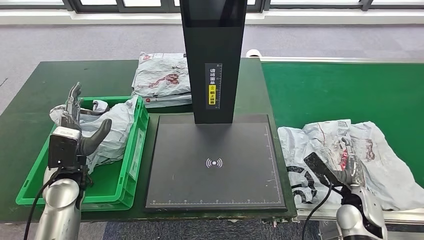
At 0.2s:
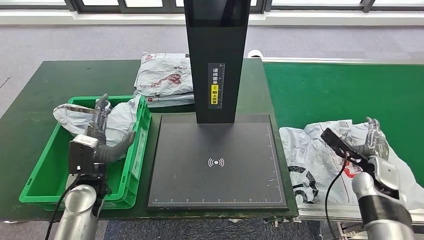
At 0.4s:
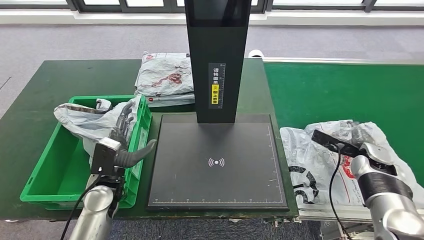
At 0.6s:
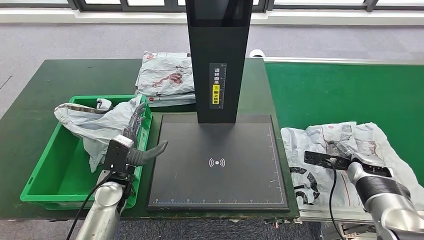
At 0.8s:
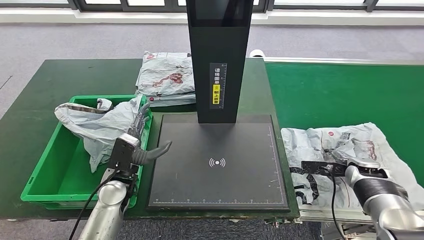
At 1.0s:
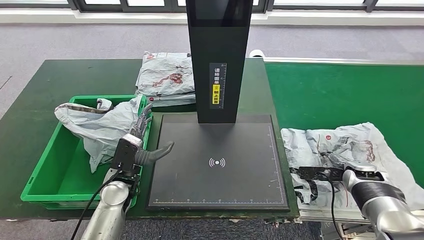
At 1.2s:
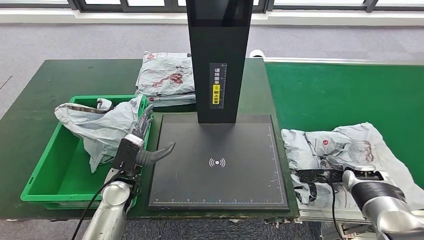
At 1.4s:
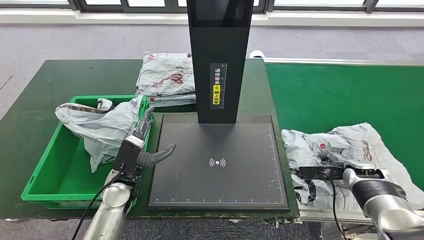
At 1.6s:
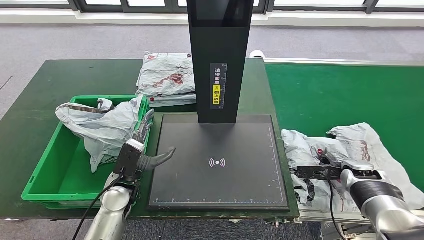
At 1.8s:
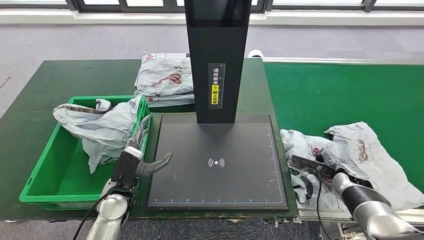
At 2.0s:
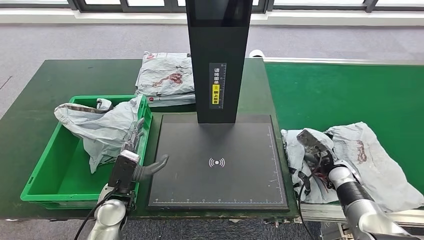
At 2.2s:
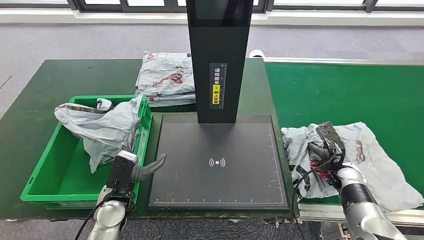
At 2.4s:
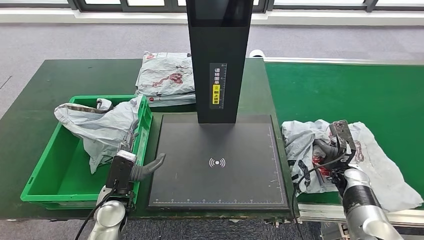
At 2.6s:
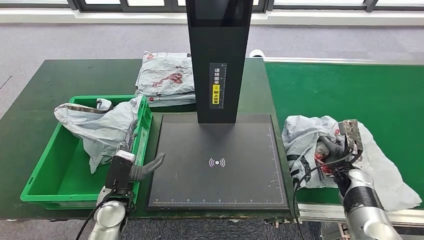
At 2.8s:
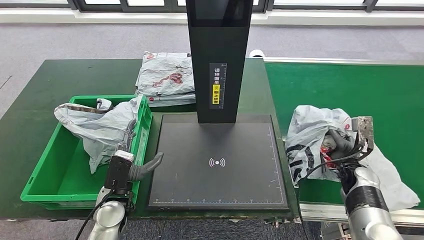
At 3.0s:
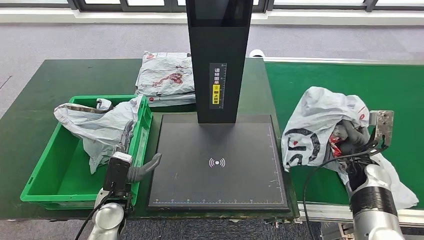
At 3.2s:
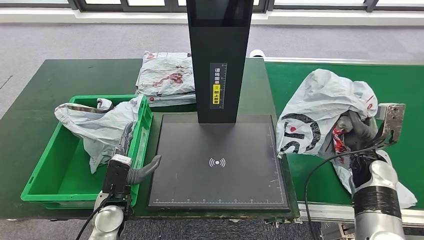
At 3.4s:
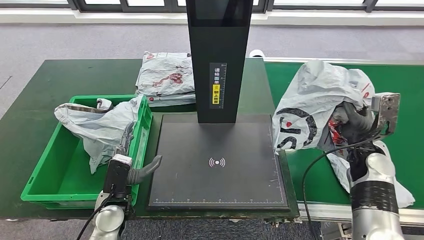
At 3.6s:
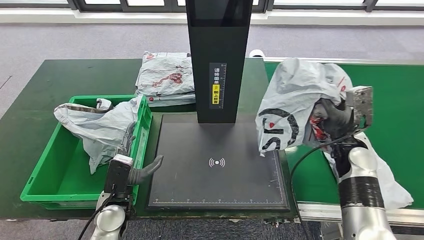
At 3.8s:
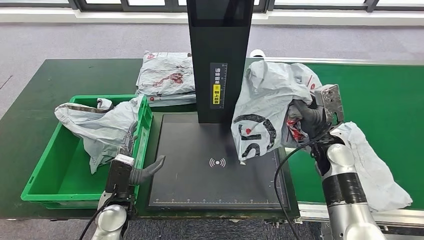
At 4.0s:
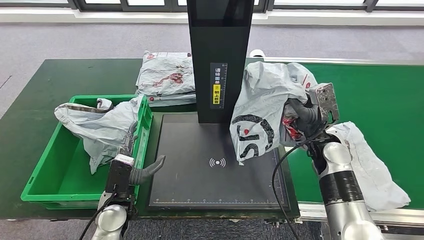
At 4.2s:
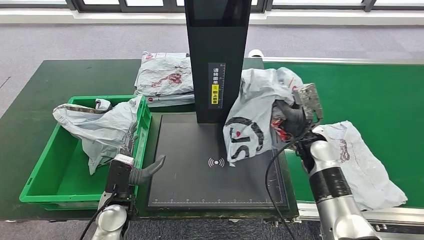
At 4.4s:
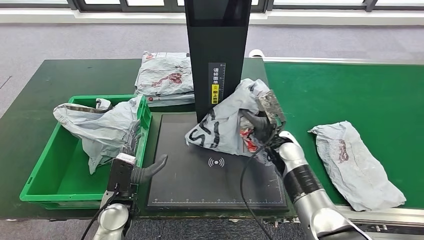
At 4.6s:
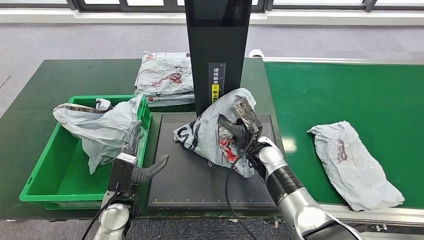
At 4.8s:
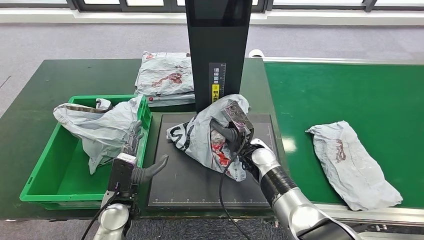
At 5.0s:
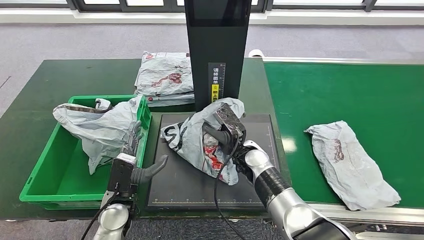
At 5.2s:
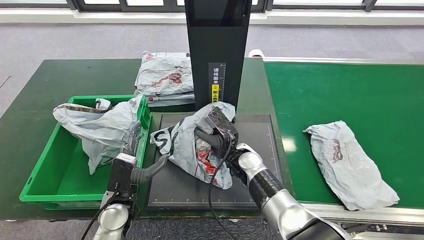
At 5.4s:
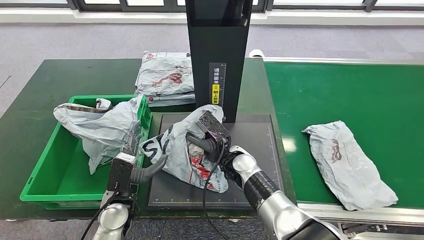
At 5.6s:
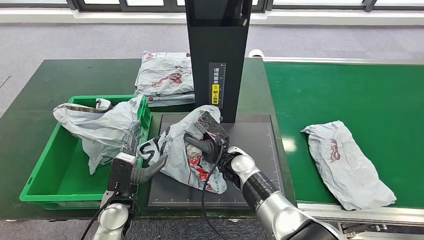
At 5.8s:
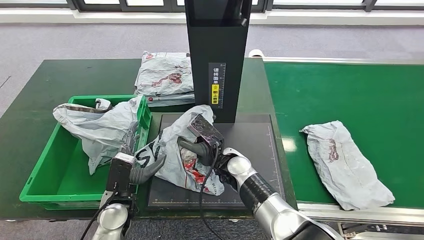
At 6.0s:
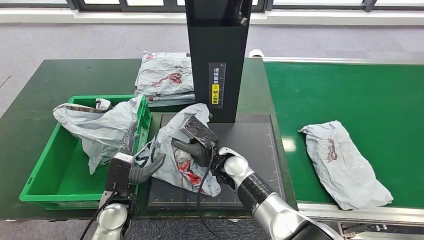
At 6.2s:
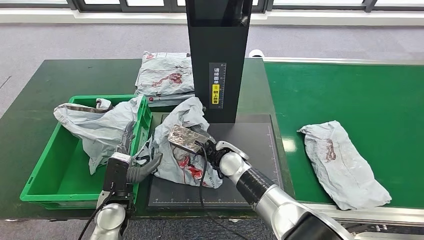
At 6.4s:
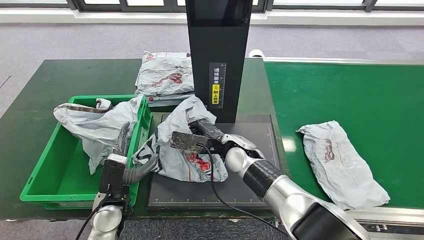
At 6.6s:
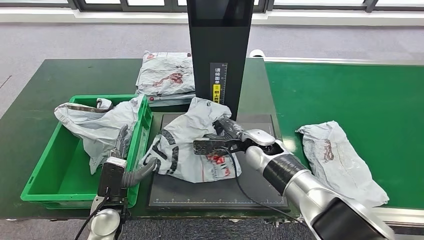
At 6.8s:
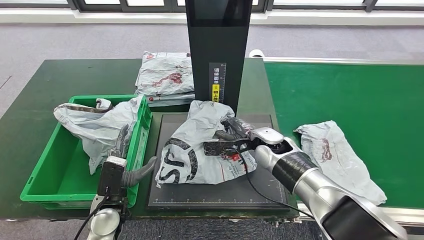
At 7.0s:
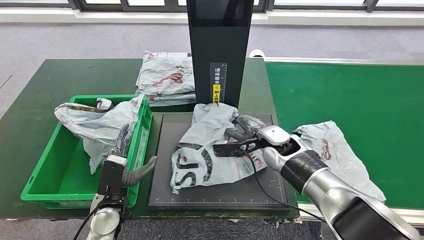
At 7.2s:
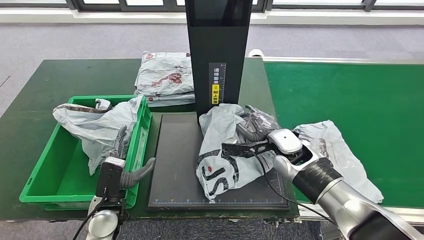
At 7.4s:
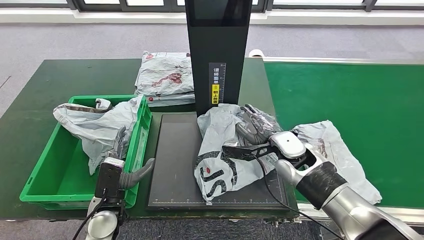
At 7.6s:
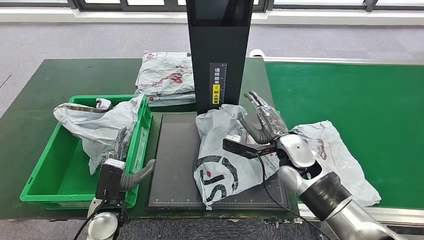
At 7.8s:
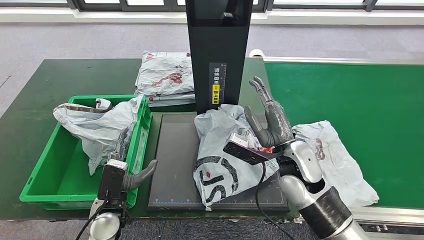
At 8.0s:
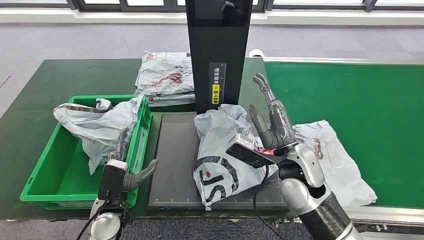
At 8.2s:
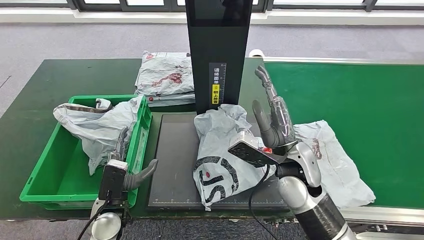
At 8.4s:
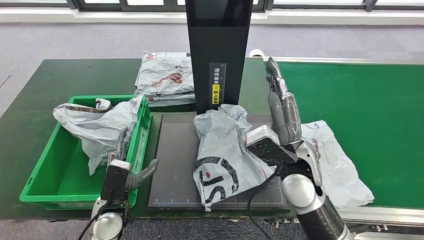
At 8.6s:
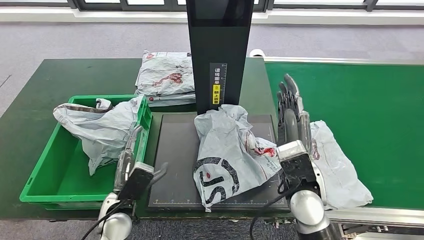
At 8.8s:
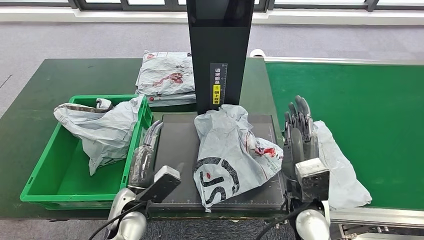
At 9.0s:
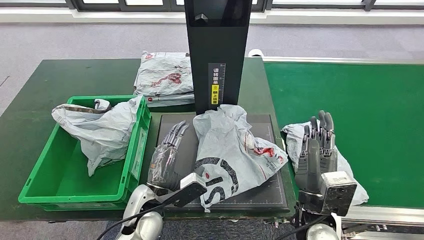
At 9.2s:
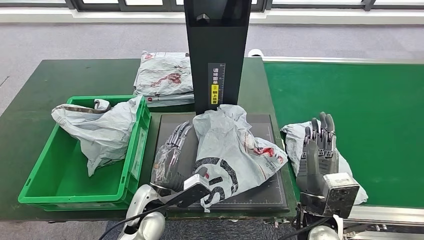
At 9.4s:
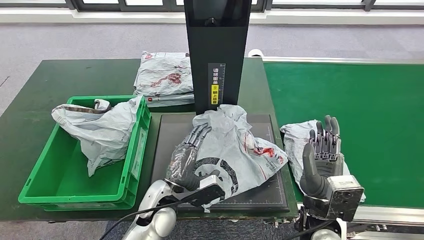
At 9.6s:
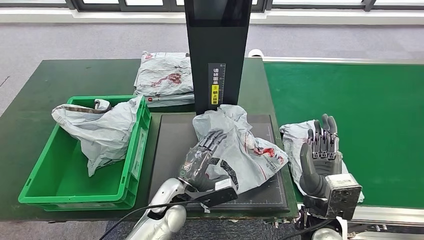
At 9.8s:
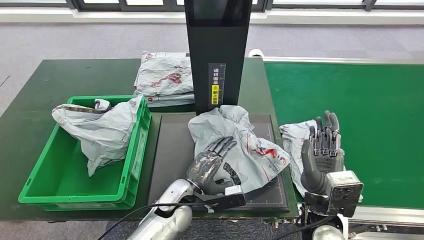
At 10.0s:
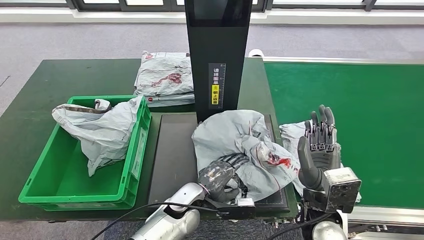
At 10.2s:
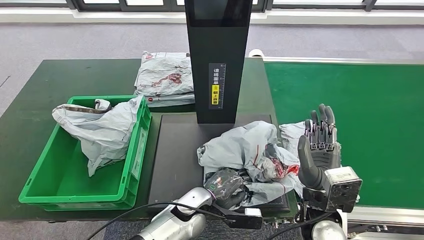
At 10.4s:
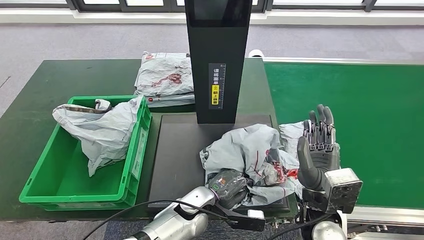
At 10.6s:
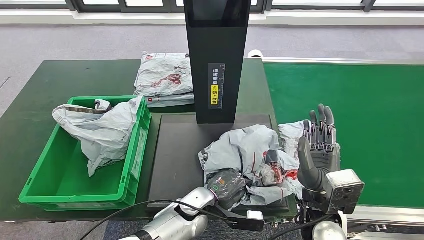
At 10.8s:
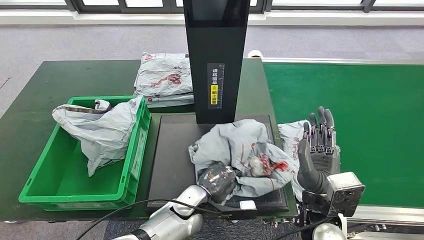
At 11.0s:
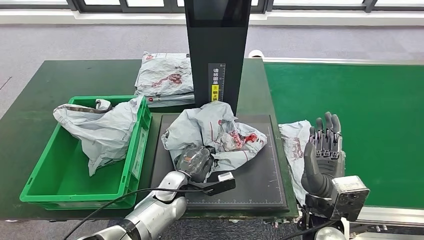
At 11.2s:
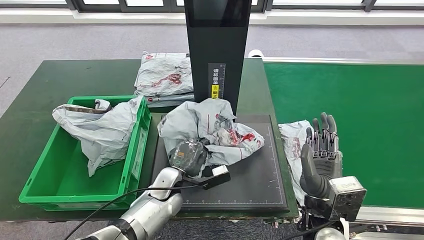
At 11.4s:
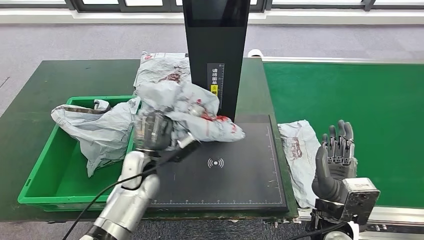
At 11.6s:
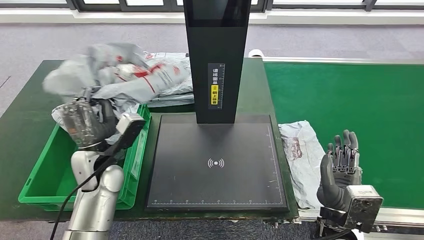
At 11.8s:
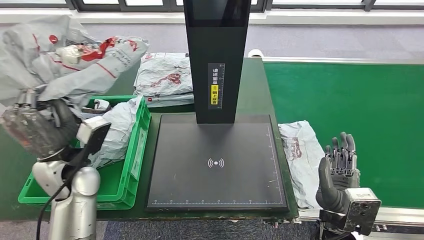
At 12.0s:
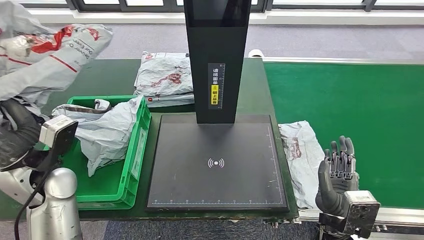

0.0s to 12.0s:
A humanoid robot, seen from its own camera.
Step, 0.0s to 3.8s: Pick up the parcel from the conveyor belt.
Step, 4.0s to 8.0s: Place the parcel onto the inbound machine.
Step, 8.4s to 11.8s: Pick up the parcel from the inbound machine.
9.0s to 10.4s: The left hand moves to the right and downward, about 10 cm.

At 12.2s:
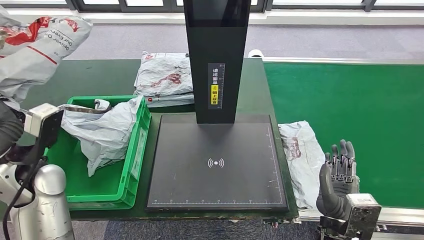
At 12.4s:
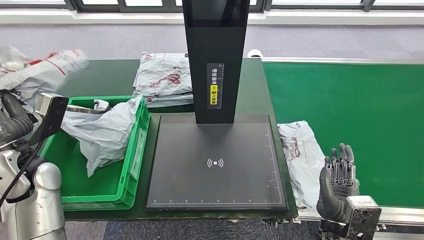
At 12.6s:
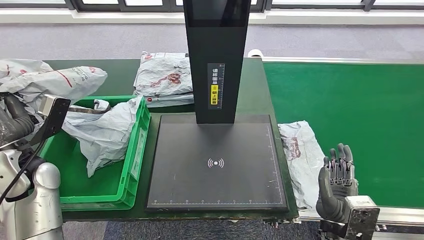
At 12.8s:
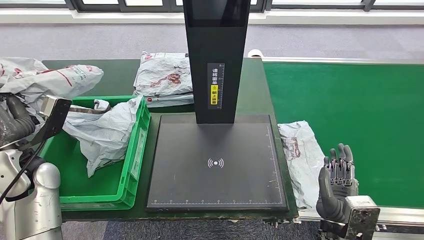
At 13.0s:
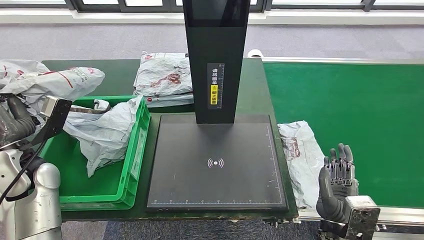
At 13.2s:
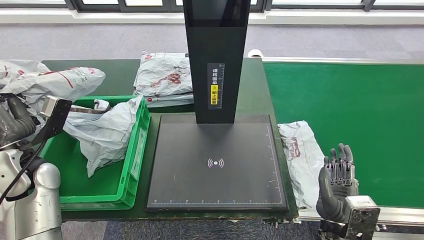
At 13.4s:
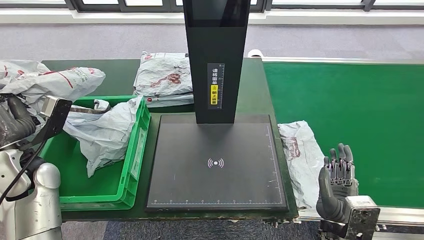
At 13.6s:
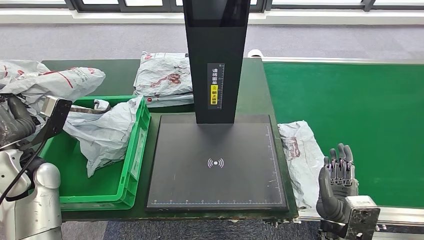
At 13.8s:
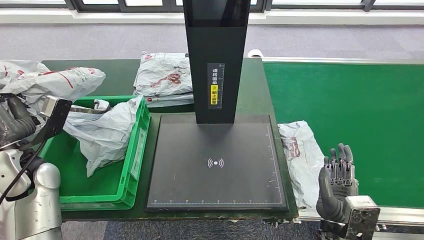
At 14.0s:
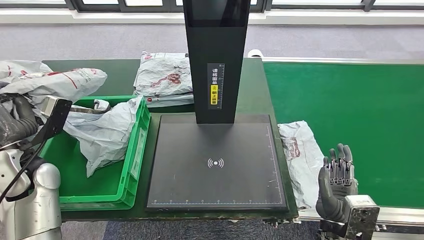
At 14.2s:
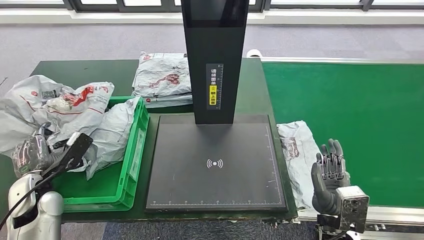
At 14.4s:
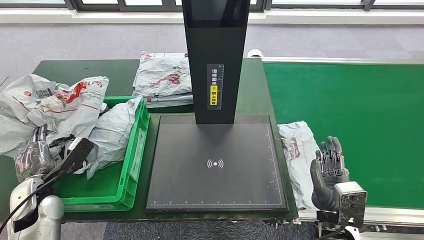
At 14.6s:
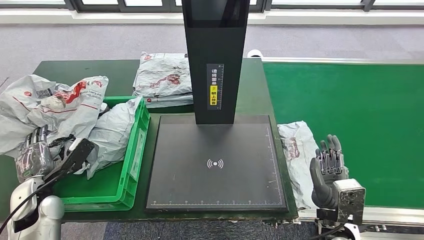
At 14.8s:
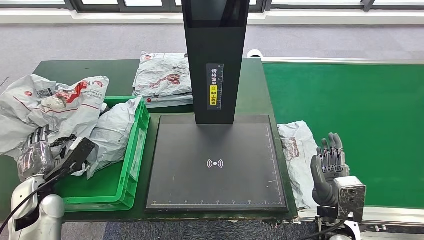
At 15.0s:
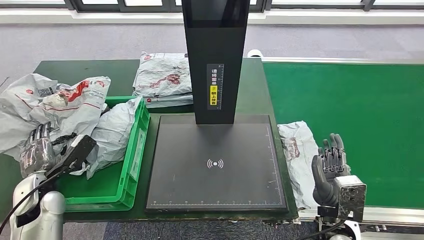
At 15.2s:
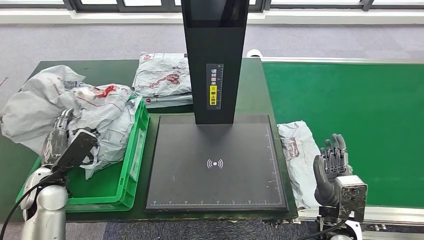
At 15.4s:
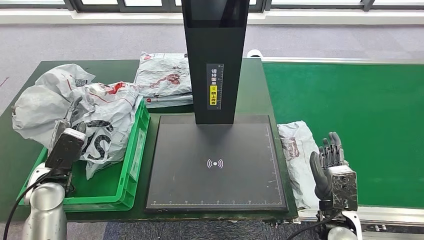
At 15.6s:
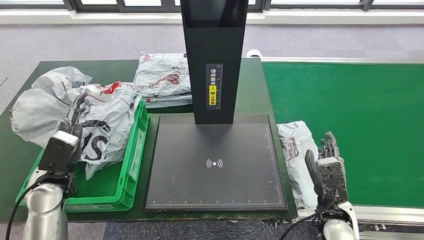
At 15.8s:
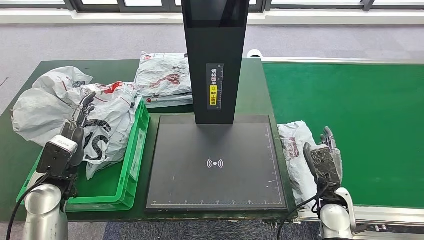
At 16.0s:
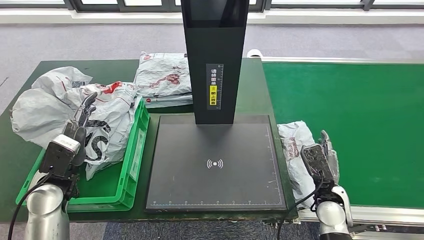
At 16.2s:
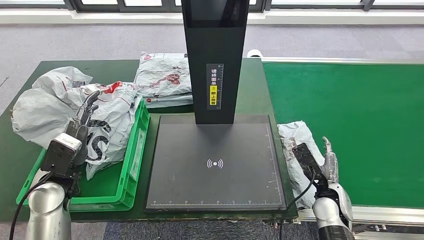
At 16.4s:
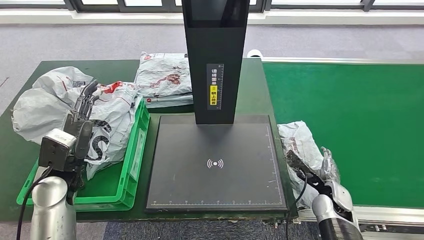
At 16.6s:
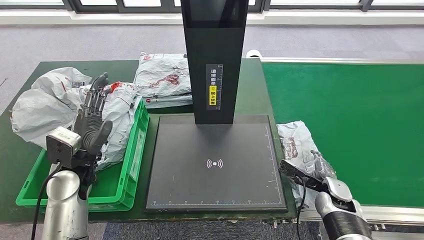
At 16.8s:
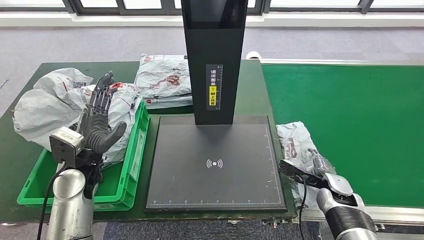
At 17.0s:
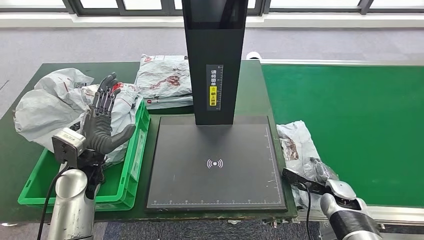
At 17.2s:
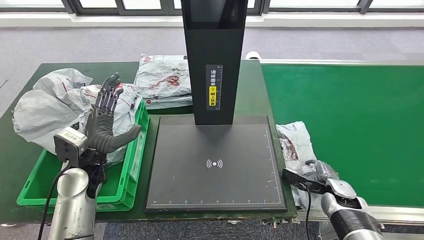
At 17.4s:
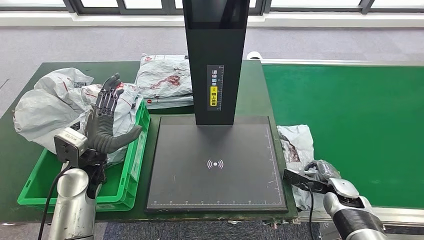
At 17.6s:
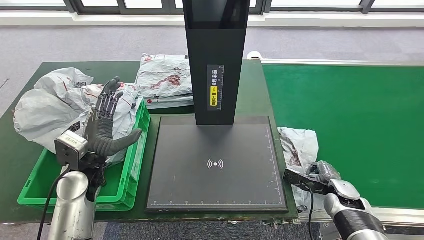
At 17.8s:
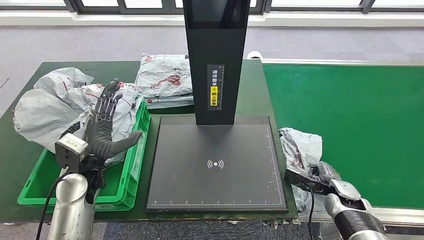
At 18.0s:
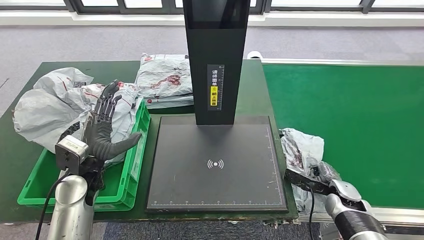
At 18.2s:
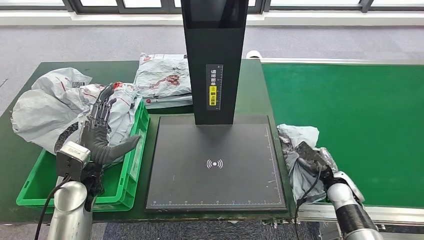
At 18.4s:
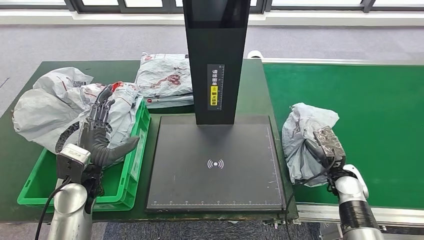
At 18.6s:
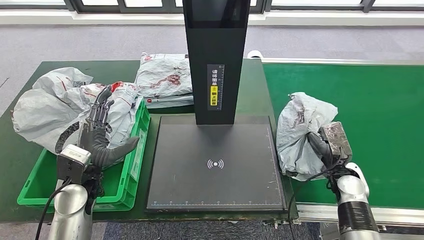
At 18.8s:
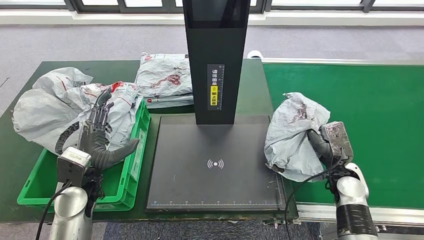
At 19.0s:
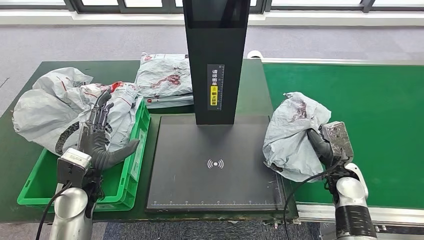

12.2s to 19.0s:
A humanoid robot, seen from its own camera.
Step, 12.2s to 16.6s: Place the parcel into the delivery box.
12.2s to 13.6s: The left hand ends up about 5 cm from where it was.
13.6s to 15.0s: The left hand shifts some 10 cm downward.
15.0s to 16.2s: The left hand is displaced to the right by approximately 5 cm, while the right hand shifts roughly 10 cm forward, to the right and downward.
17.6s to 19.0s: The right hand shifts roughly 10 cm upward.
